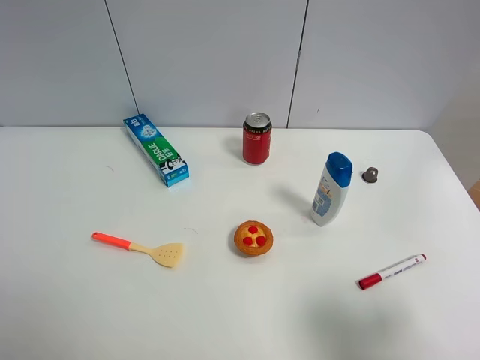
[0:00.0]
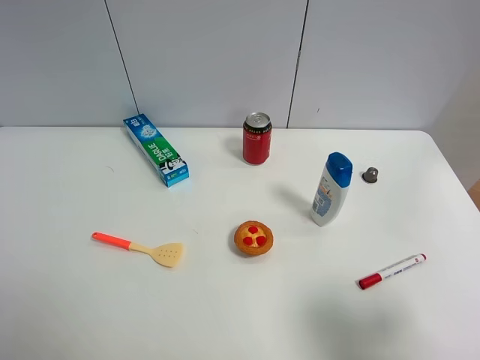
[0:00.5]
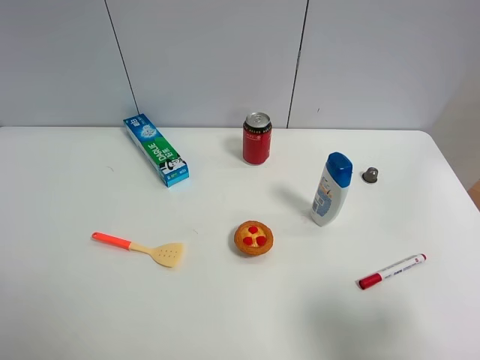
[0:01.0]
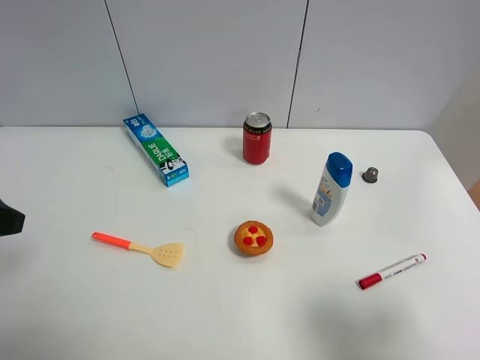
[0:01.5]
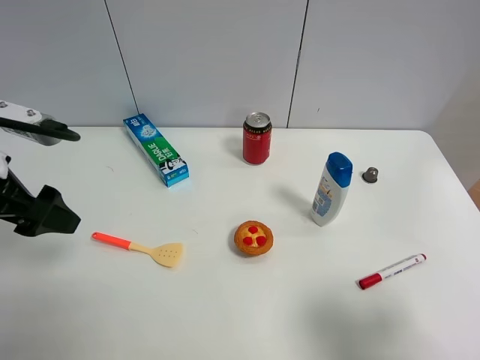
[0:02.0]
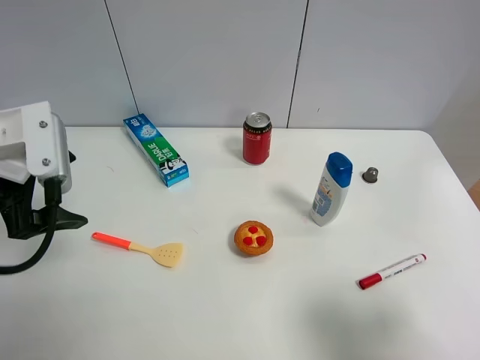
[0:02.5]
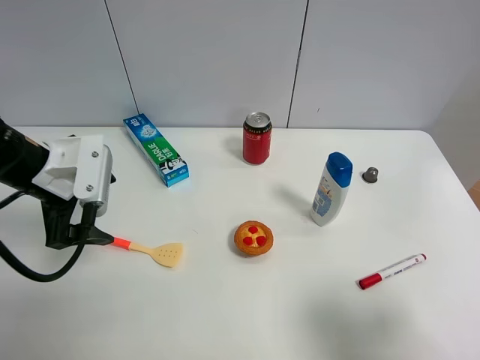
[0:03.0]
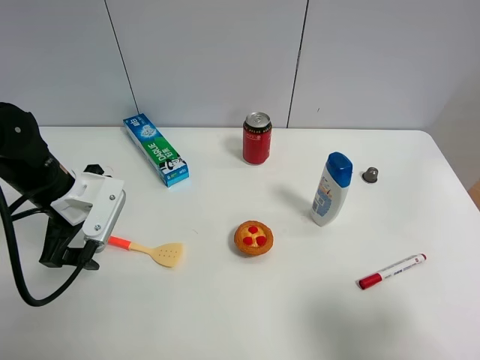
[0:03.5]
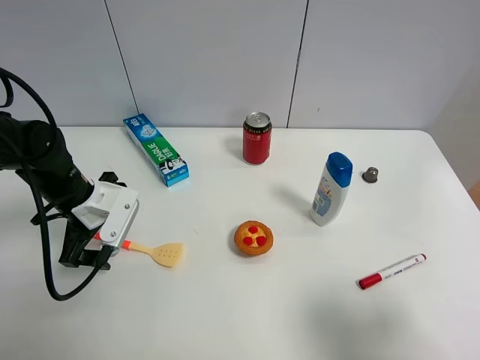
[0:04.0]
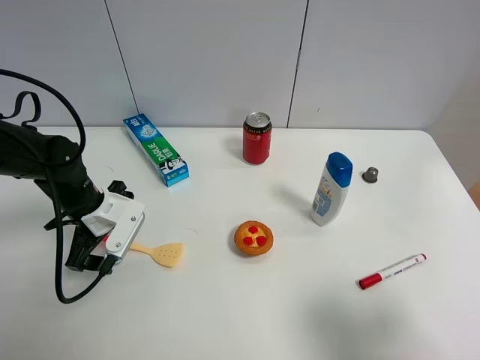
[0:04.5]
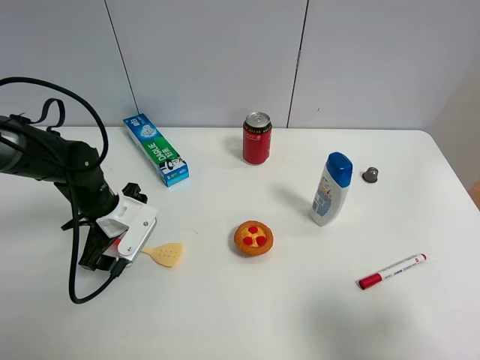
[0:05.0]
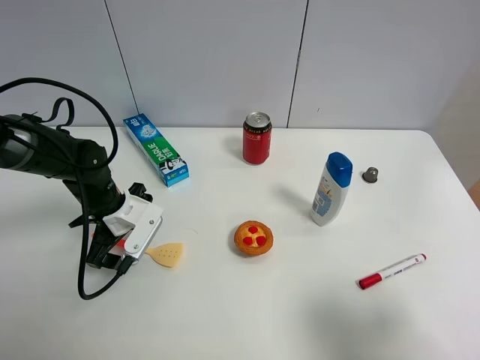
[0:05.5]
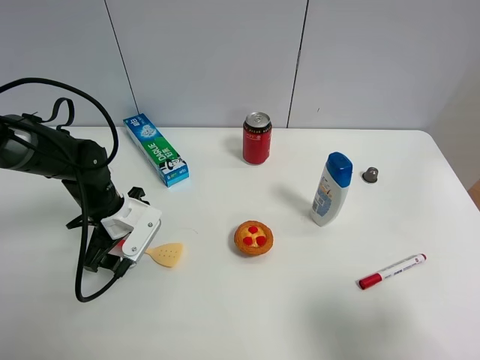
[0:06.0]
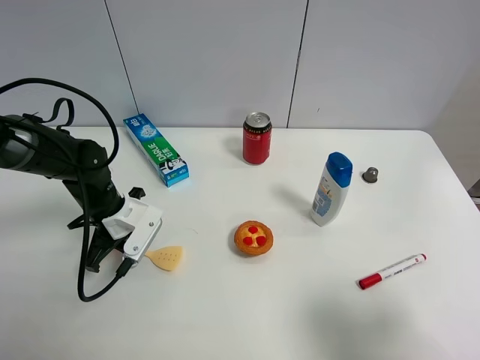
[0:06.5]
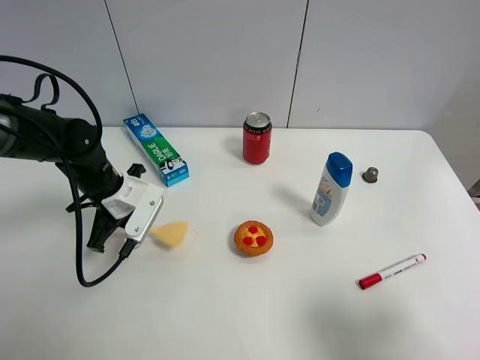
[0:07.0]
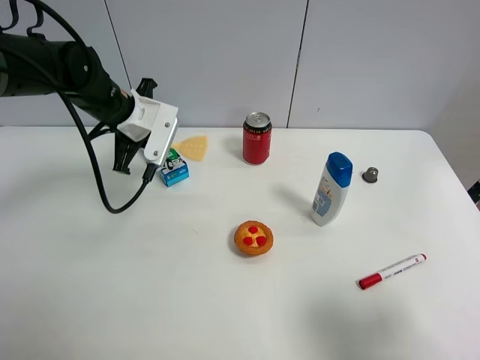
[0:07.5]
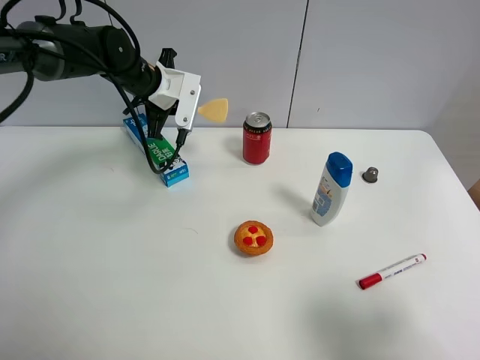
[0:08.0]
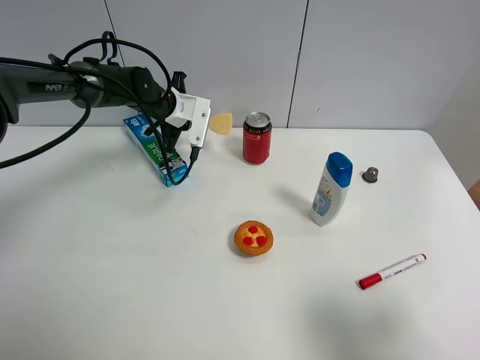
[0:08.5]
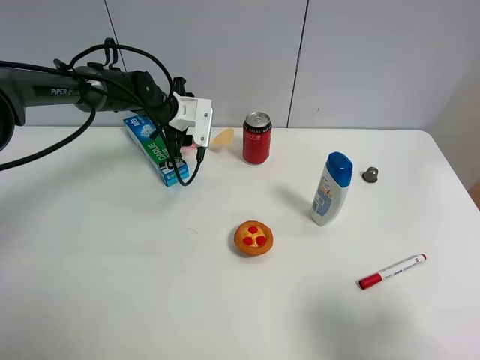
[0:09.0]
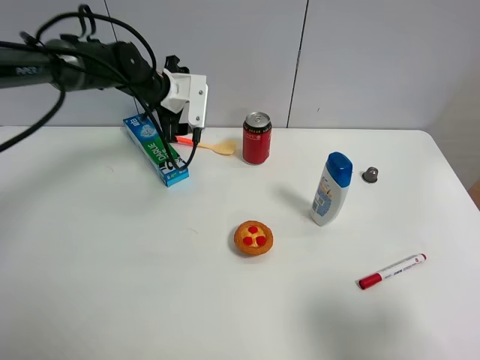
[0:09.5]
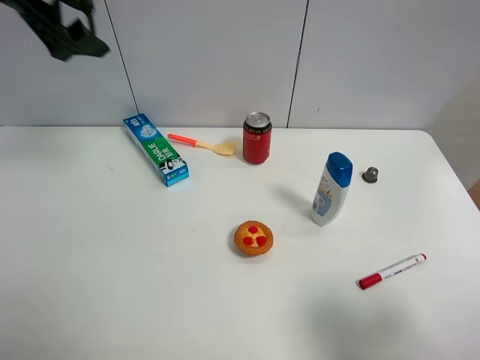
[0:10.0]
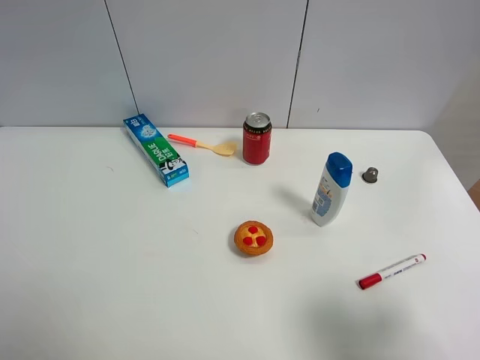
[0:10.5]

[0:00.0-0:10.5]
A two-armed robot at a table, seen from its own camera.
Task of the whole recording: the gripper move the object.
Step, 0:00.0 to 0:06.5: Grasp the cooking shovel with the left gripper.
Step, 0:07.0 to 0:09.0: Place the cooking shovel on the table with the left gripper.
0:00.0 to 0:02.0: The left gripper travels forward by some 20 cm.
0:02.0 to 0:04.0: The left gripper goes approximately 15 cm downward and forward.
0:04.0 to 0:06.5: The left gripper changes place by about 5 cm, and closes its fingers.
0:06.5 to 0:08.5: The left gripper travels forward by some 20 cm.
0:08.5 to 0:10.5: The left gripper travels backward, upward and to the left by roughly 50 cm, and opens up.

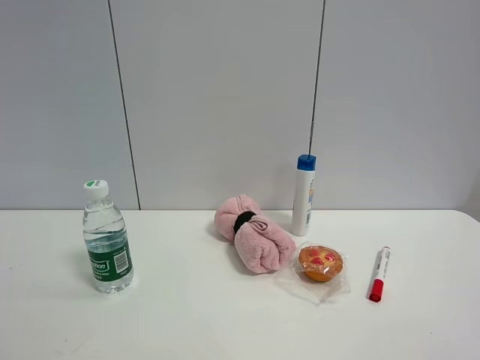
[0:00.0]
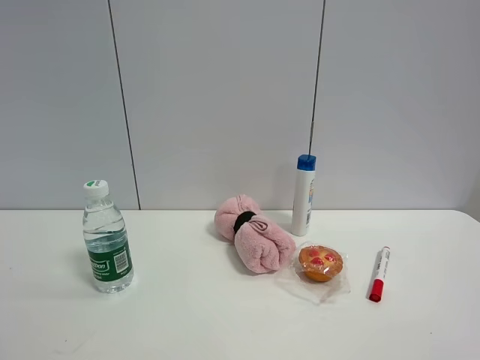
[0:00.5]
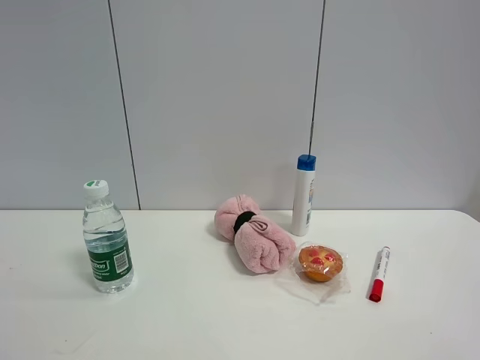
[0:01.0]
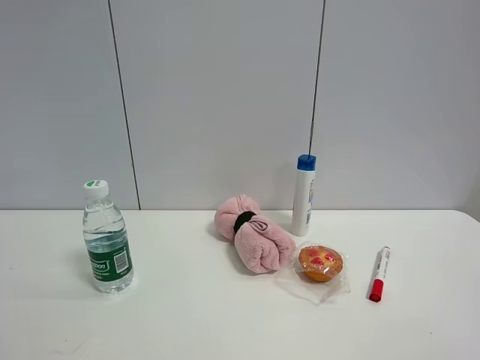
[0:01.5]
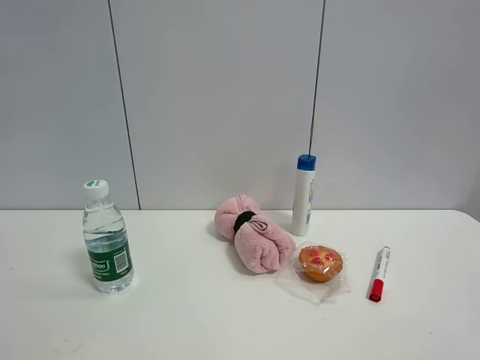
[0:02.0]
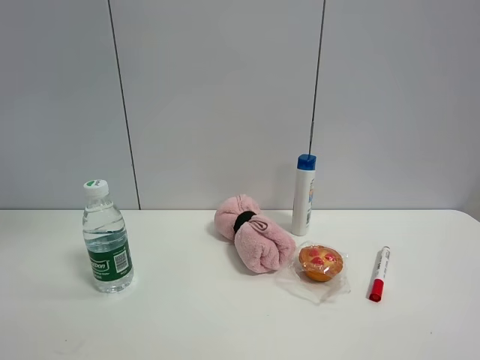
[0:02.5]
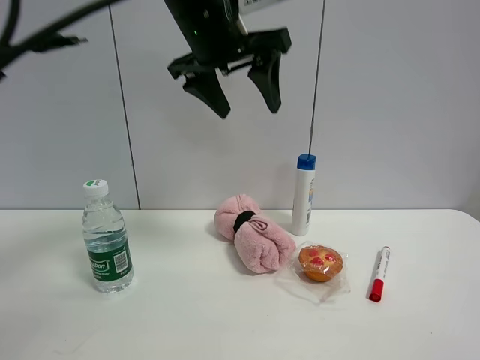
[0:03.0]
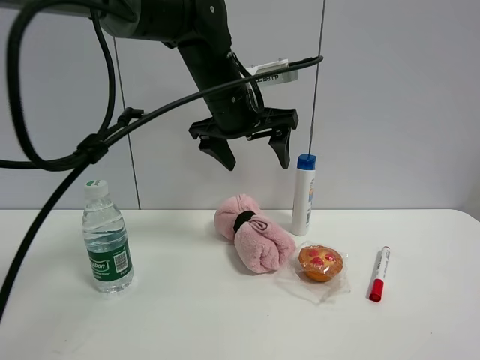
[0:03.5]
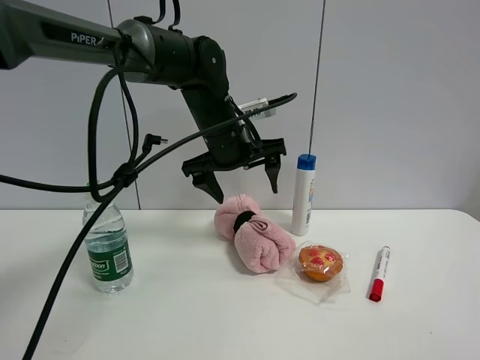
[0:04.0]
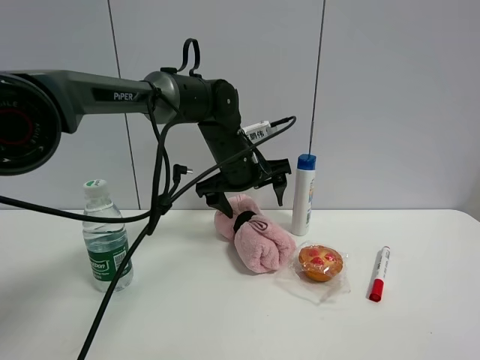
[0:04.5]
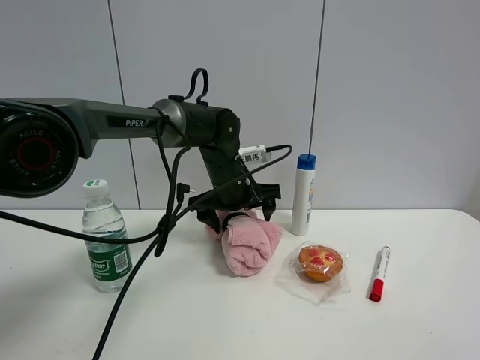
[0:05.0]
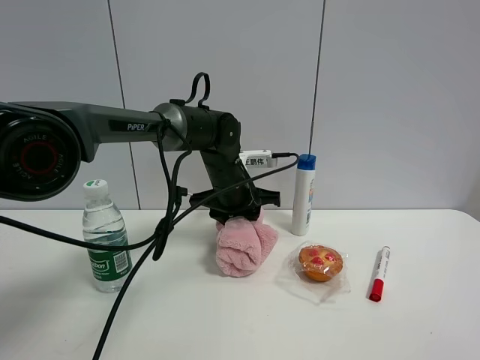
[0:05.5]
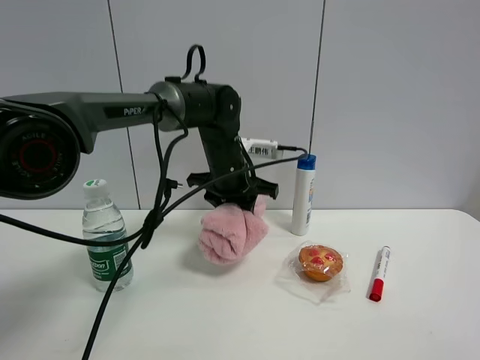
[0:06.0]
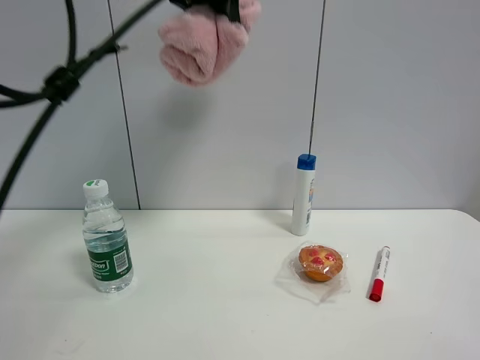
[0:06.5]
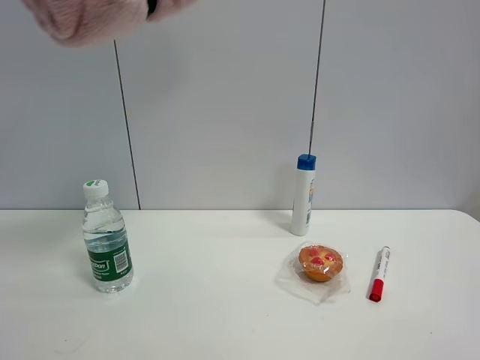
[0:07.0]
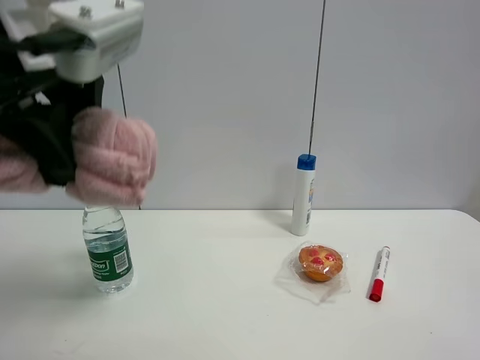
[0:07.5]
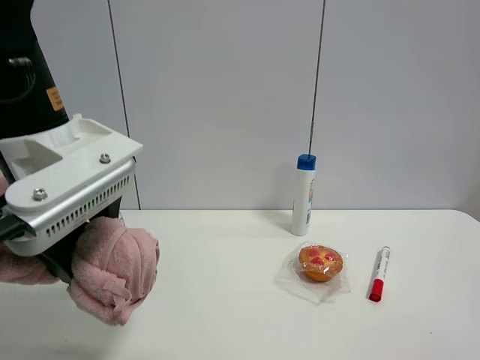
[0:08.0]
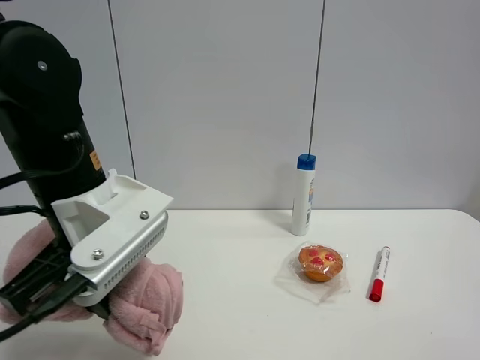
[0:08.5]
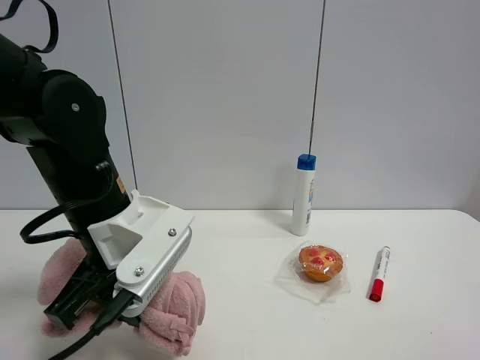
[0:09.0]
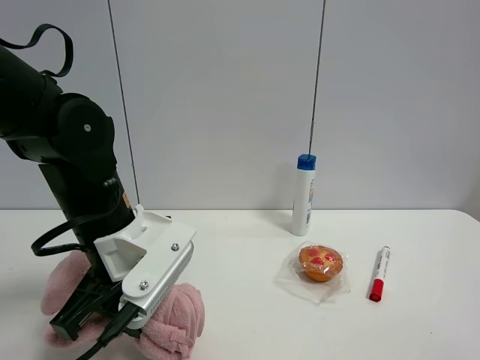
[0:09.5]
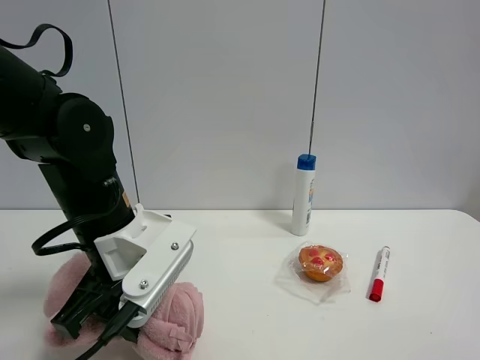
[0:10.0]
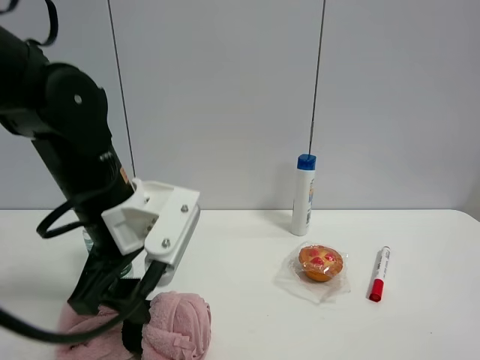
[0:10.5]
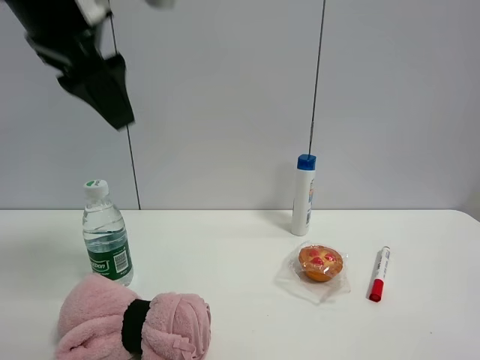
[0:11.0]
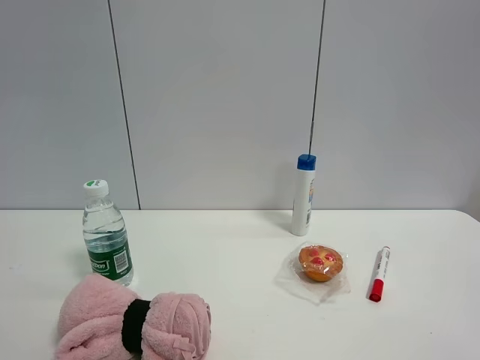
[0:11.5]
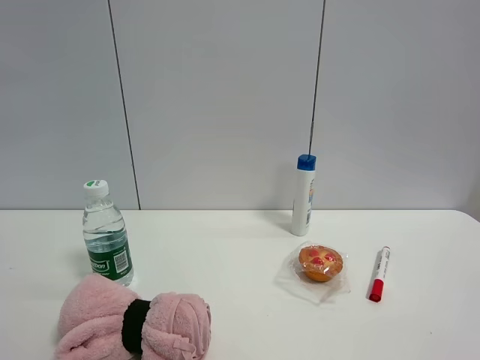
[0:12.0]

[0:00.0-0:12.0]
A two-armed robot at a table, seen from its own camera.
Task of the whole recording: the gripper move the object.
Step, 0:00.0 to 0:05.0: Grasp the pink towel with the left gripper.
Step, 0:05.5 to 0:10.5: Place the pink towel on the table with the left gripper.
0:02.0 to 0:04.0: The left gripper shifts roughly 50 cm forward, to the right and downward, and opens.
0:04.0 to 0:06.0: The left gripper is displaced downward by about 5 cm, and closes its fingers.
0:06.0 to 0:08.0: The left gripper goes approximately 25 cm backward and to the left, and travels upward and back again, approximately 30 cm each way.
0:08.0 to 0:10.0: The left gripper moves downward, about 10 cm.
0:10.0 to 0:12.0: The left gripper moves upward, to the left and backward, roughly 40 cm.

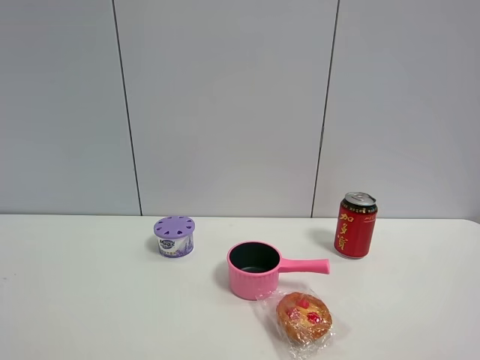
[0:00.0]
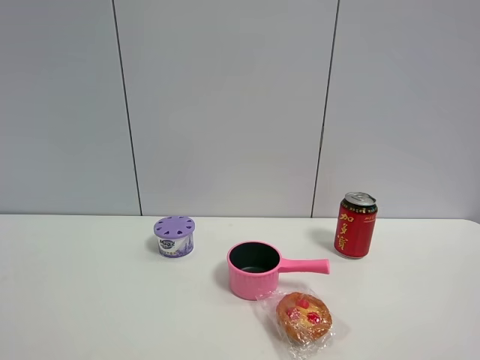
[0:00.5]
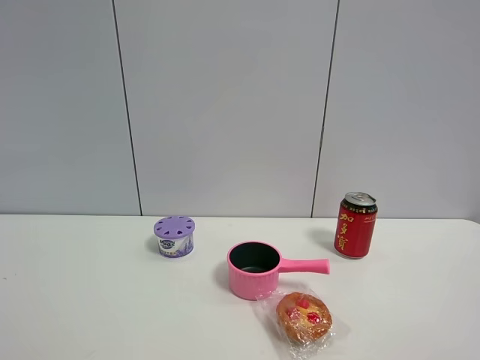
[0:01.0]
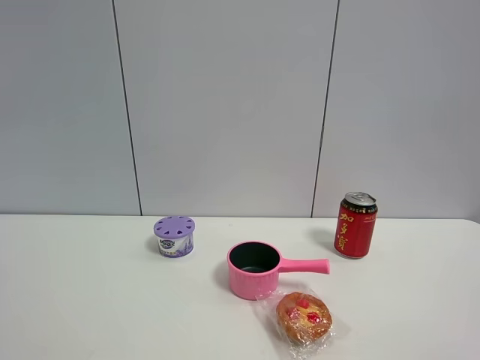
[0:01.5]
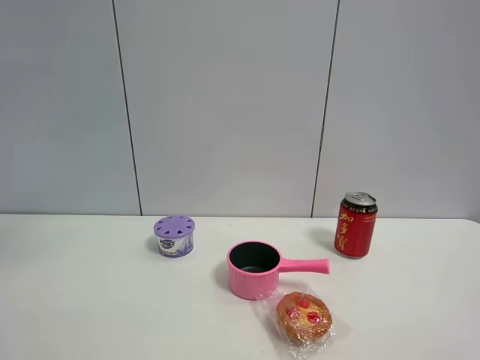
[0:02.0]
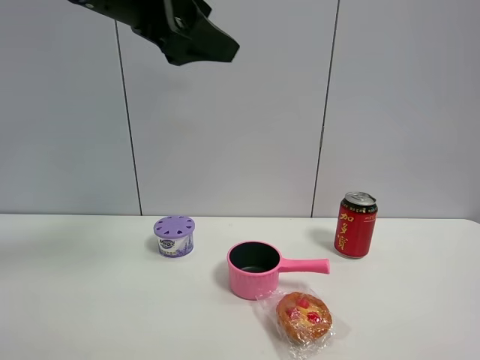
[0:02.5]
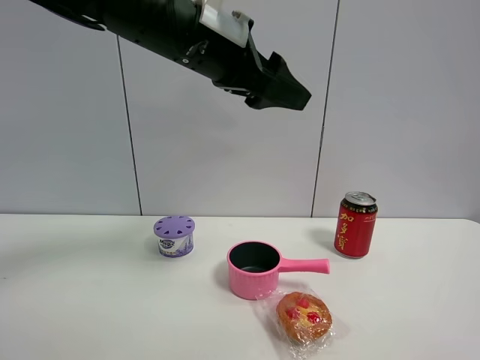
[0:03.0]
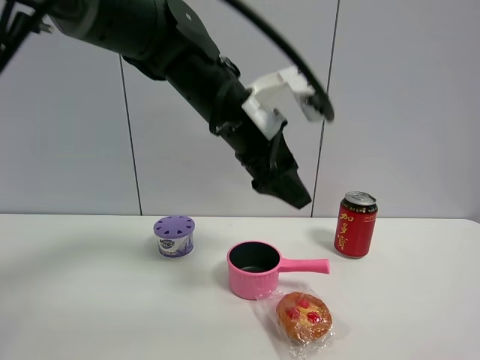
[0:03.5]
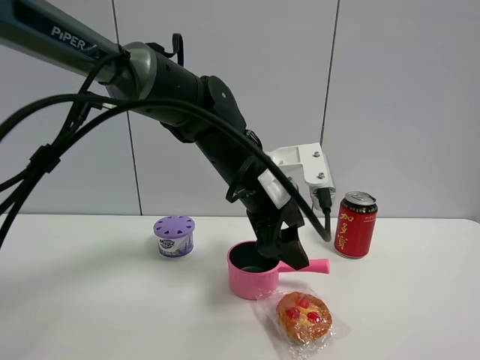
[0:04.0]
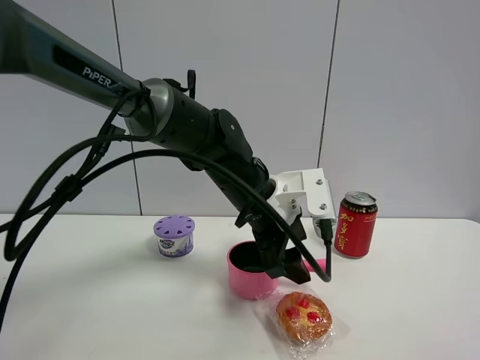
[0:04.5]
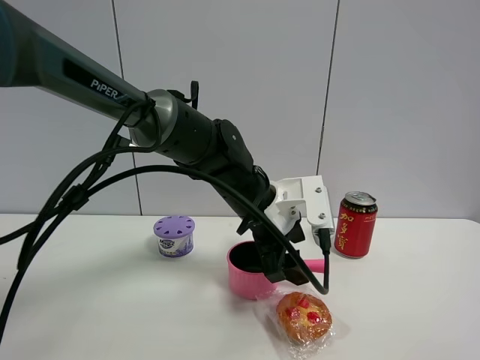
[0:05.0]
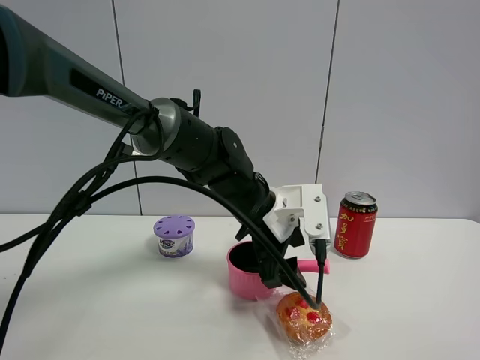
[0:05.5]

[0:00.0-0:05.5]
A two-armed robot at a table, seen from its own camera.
Task of the whole recording: the gripper move the object.
0:02.0 to 0:03.5: The left gripper heads to the right and downward, covering approximately 30 cm.
0:03.5 to 0:05.5: The left gripper is displaced downward by approximately 10 cm.
